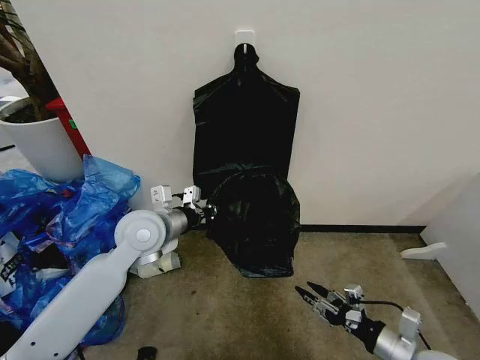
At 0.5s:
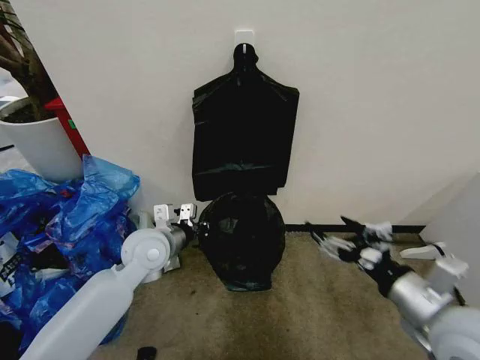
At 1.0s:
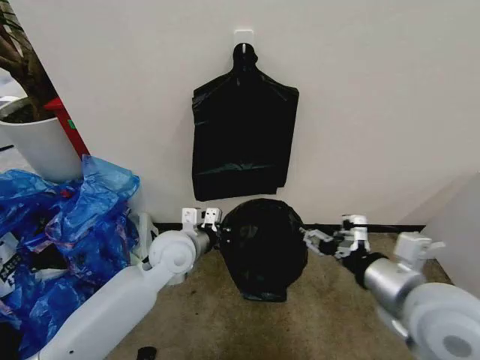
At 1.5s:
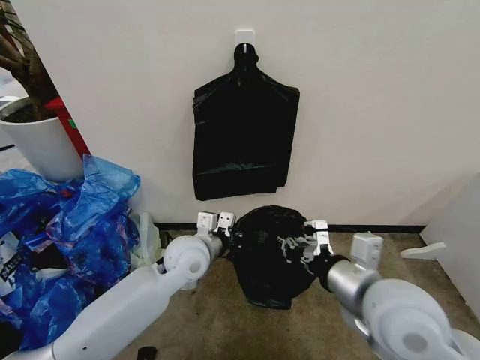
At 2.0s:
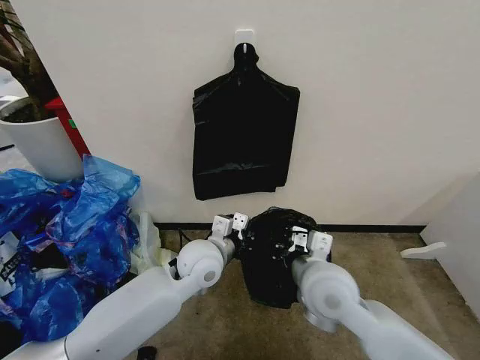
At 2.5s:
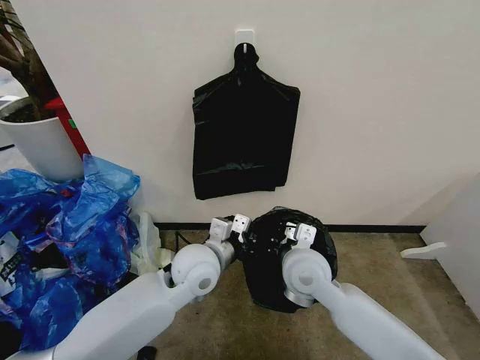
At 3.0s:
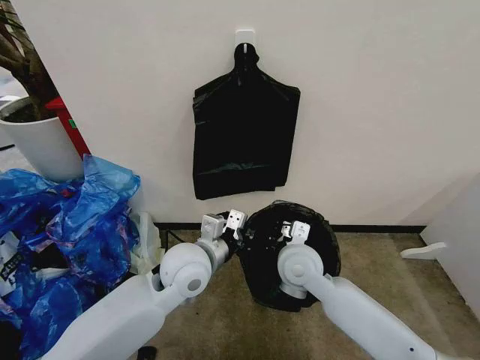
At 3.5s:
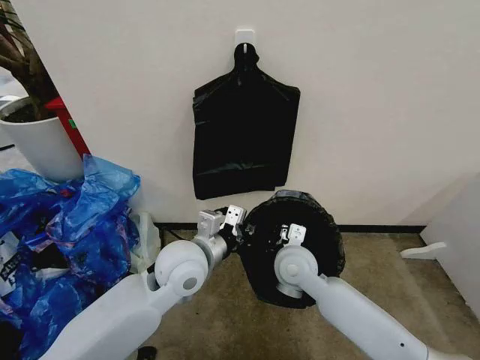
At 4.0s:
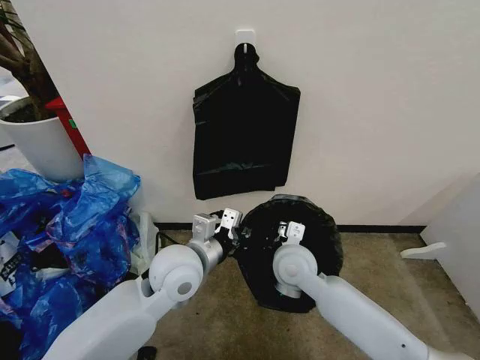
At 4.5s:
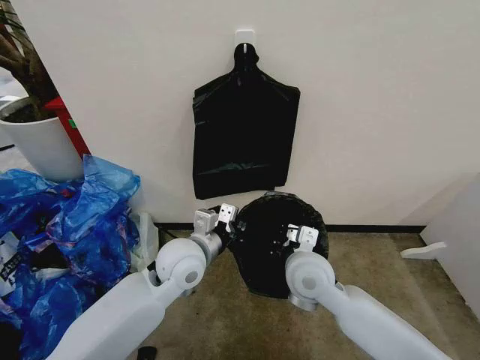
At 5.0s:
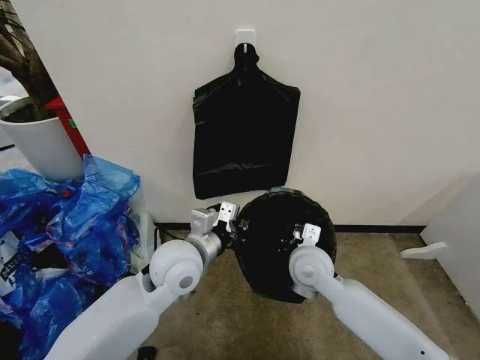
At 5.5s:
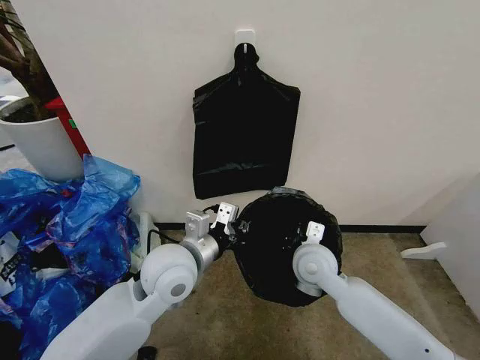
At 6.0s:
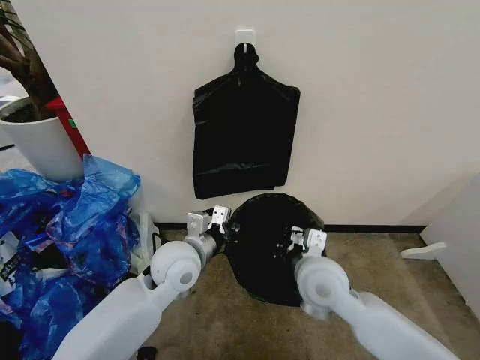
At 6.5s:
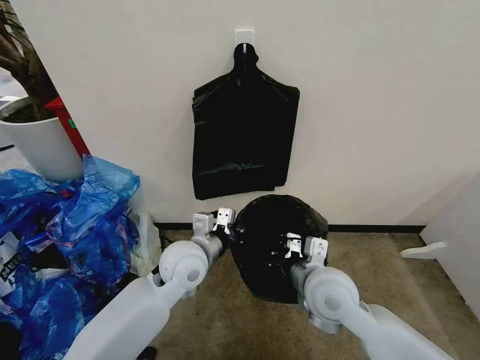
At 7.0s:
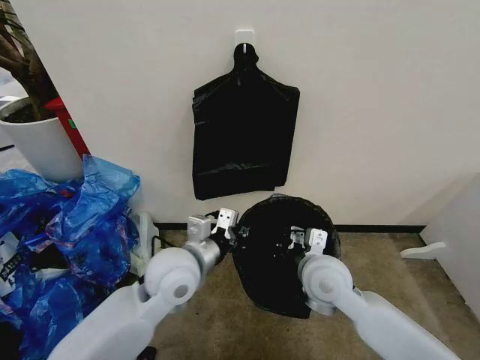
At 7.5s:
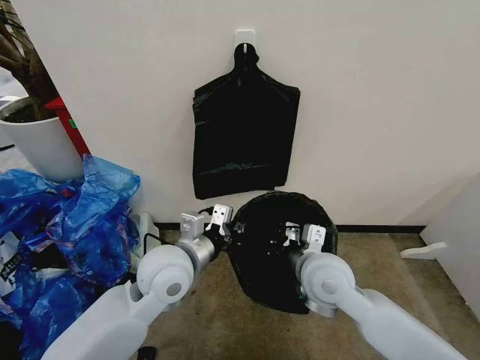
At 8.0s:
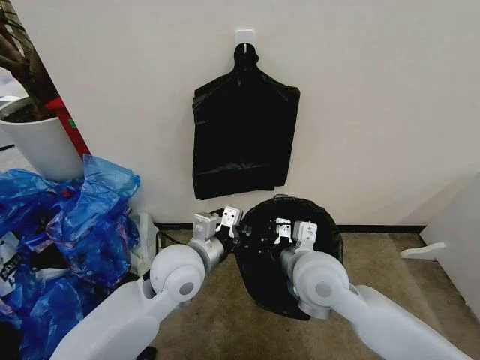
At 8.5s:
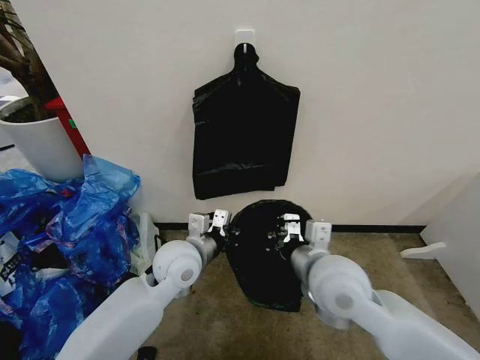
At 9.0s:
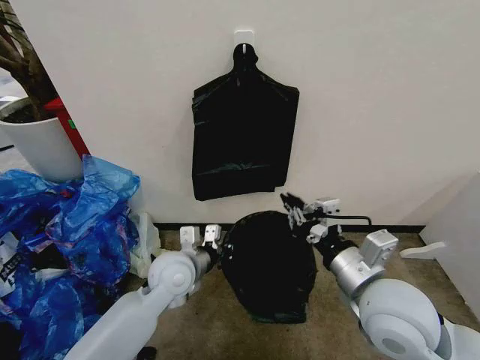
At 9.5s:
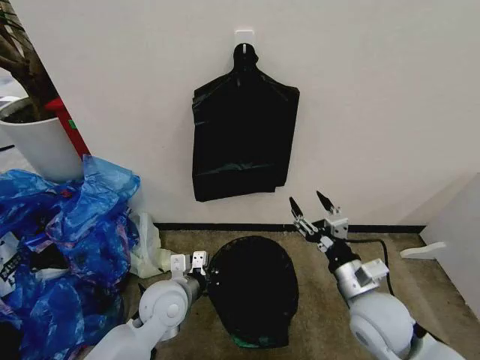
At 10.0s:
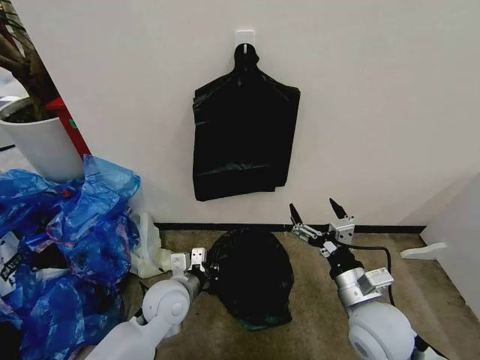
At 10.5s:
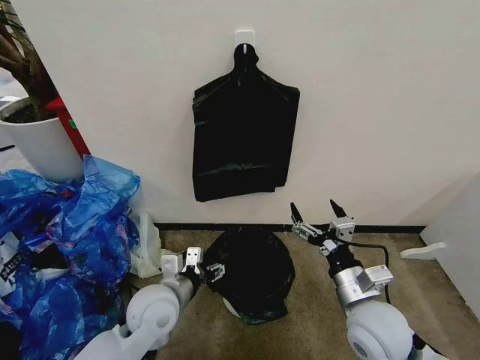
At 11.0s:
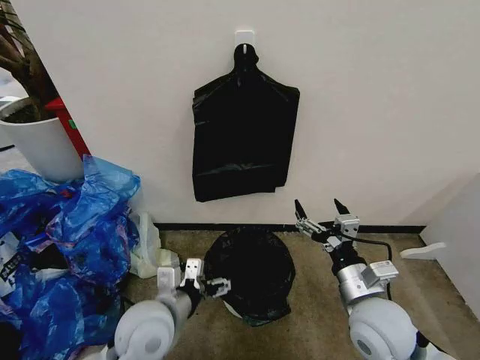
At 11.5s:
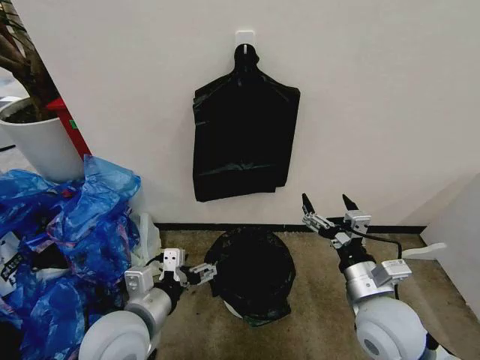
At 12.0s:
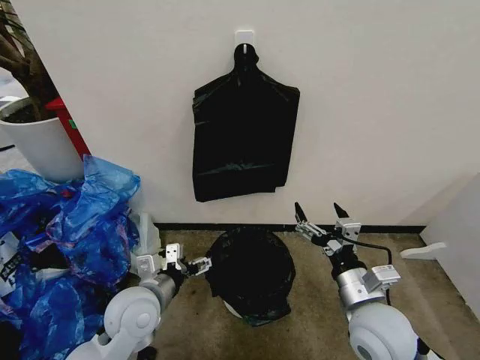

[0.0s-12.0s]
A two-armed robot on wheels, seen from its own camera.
Task of the whole recording: Place the garbage bag over the trash bin.
0.0s to 2.0s: The right gripper moves to the left, upward and forward, approximately 25 cm, and closes up; the left gripper moves to the right and downward, about 15 cm.
2.0s to 4.0s: The right gripper shifts approximately 10 cm forward and downward, while the left gripper changes place by roughly 5 cm.
4.0s to 6.0s: The right gripper swings forward and backward, roughly 5 cm each way, with 2 reversals.
6.0s to 8.0s: The grippers stay close to where they were, moving slightly.
8.0s to 10.0s: The right gripper shifts roughly 15 cm to the right, backward and downward, and opens its fingers. The left gripper travels downward by about 10 cm.
10.0s to 12.0s: The left gripper opens up.

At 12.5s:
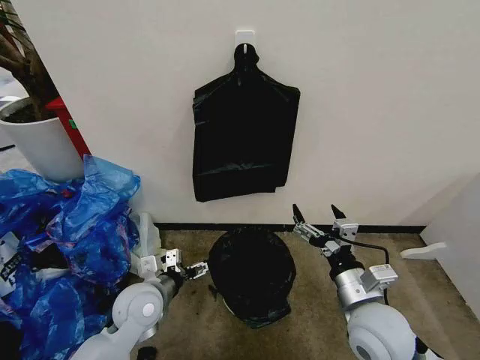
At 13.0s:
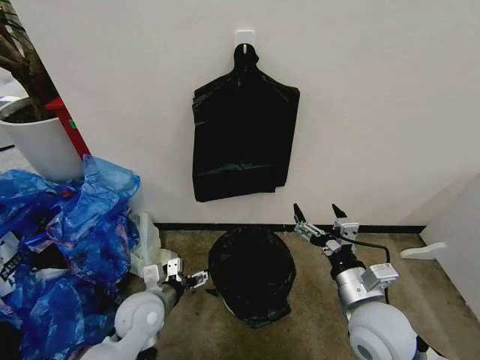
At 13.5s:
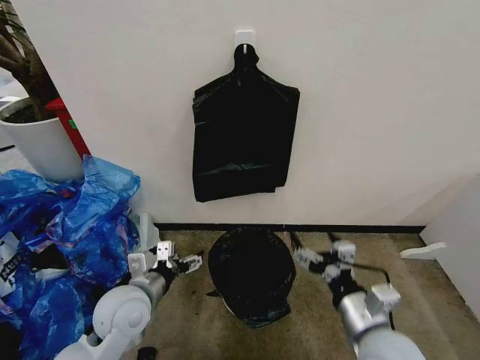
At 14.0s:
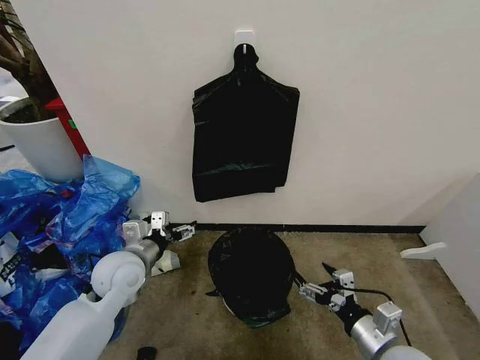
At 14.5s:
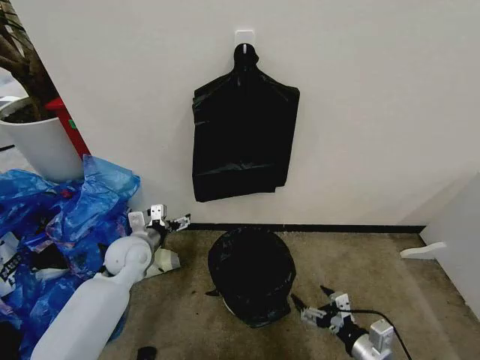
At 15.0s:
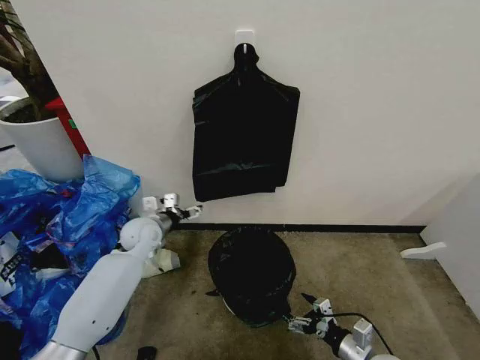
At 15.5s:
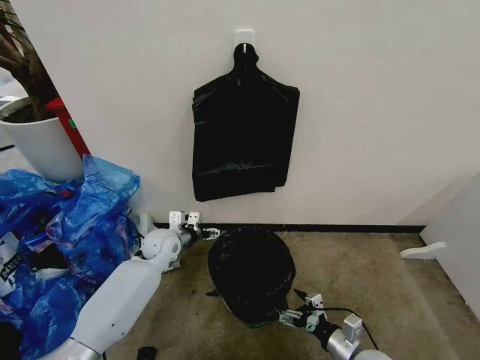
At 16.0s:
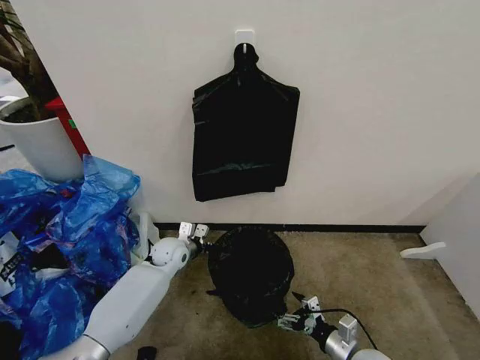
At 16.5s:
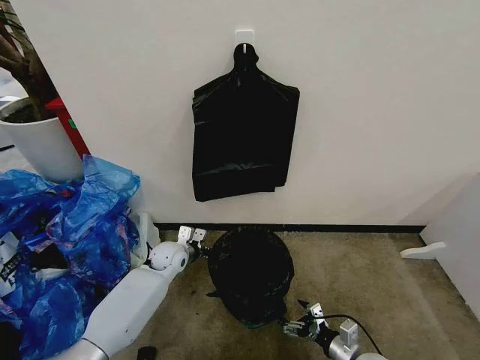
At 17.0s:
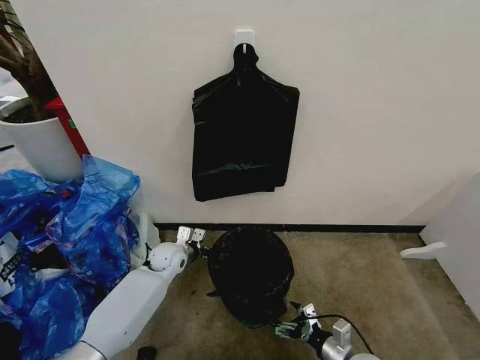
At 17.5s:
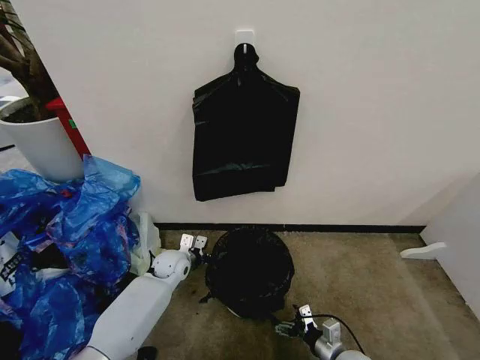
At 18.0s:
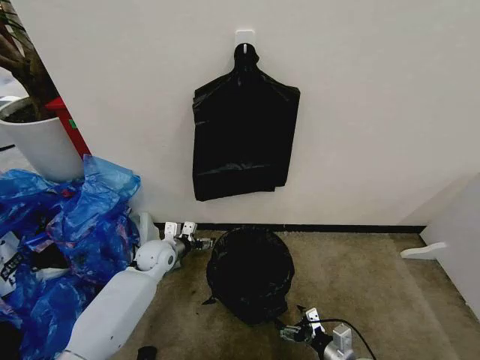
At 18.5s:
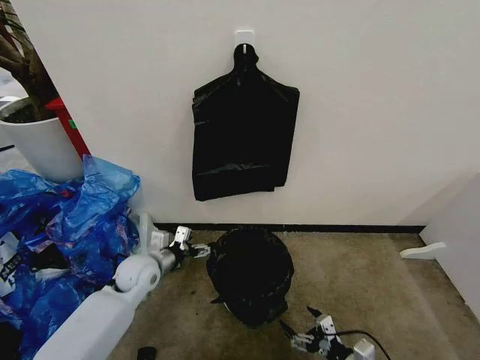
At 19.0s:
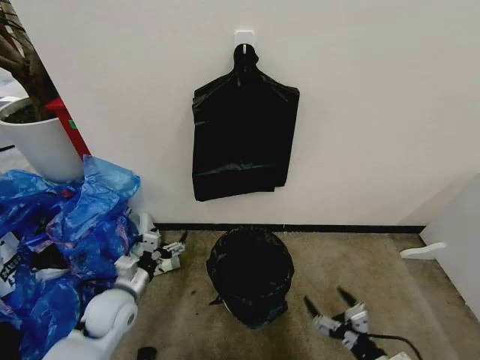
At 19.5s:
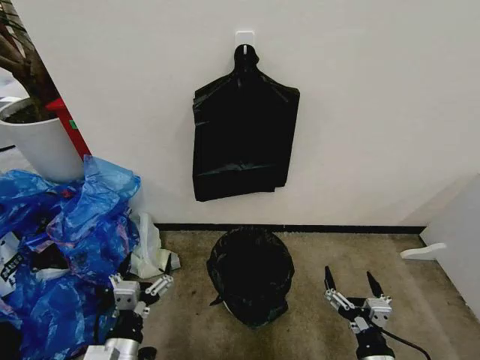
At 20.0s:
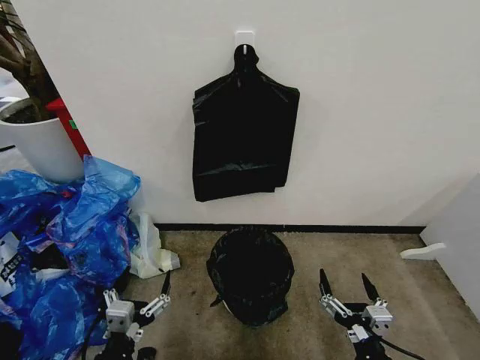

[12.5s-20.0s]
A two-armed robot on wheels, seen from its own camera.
Task of the whole recording: Place the garbage bag over the trash bin.
12.5s to 14.5s: The right gripper shifts roughly 15 cm downward, to the right and backward; the left gripper heads forward and to the left, covering roughly 10 cm.
14.5s to 16.5s: The left gripper is displaced downward, to the right and forward by roughly 15 cm. The right gripper is displaced downward by roughly 10 cm.
16.5s to 18.0s: There are only small adjustments of the grippers.
18.0s to 20.0s: The left gripper travels backward by about 35 cm. Meanwhile the right gripper is displaced upward and backward by some 15 cm.

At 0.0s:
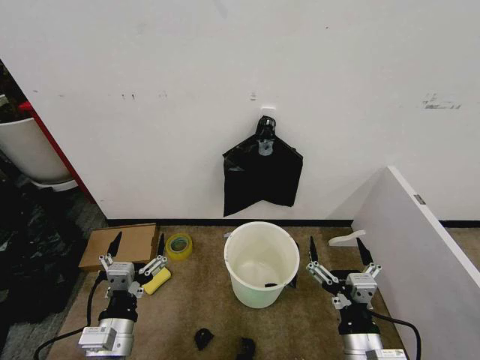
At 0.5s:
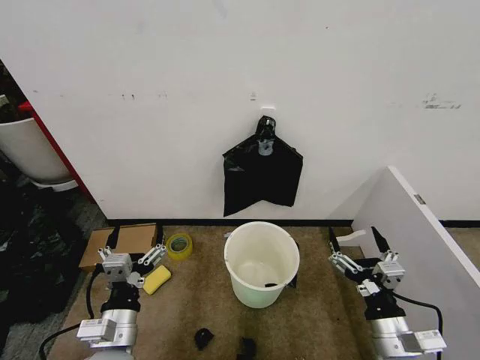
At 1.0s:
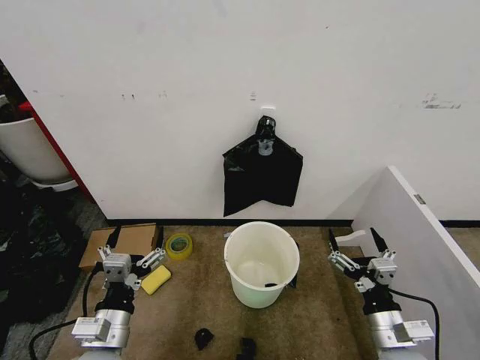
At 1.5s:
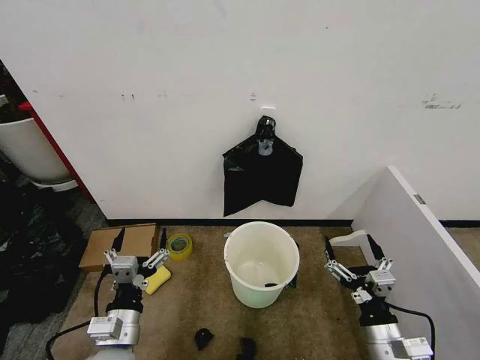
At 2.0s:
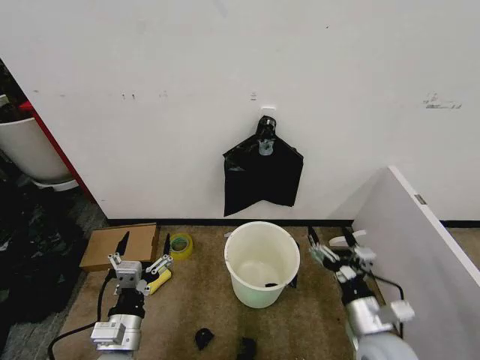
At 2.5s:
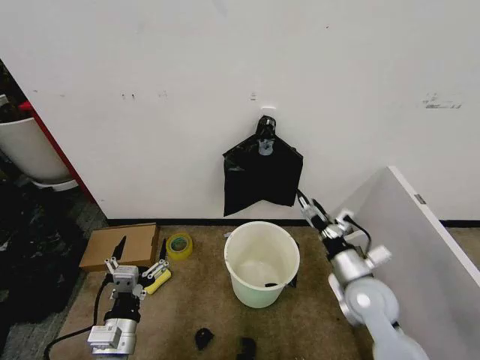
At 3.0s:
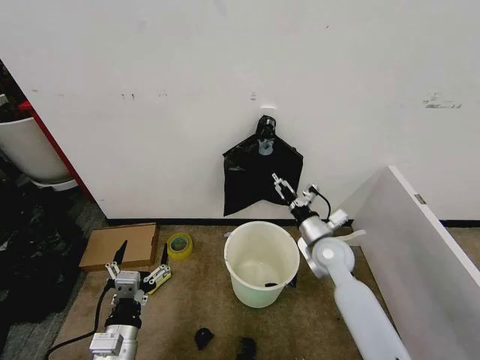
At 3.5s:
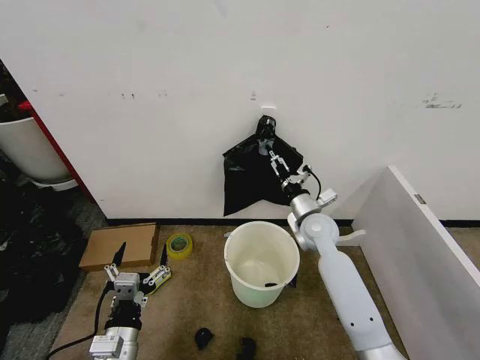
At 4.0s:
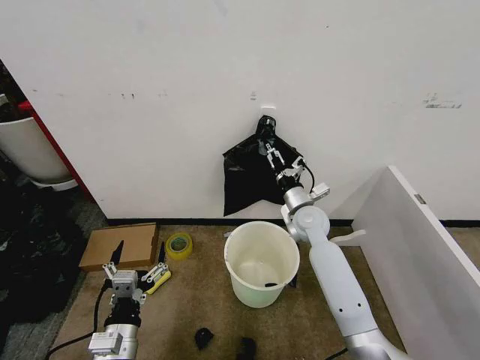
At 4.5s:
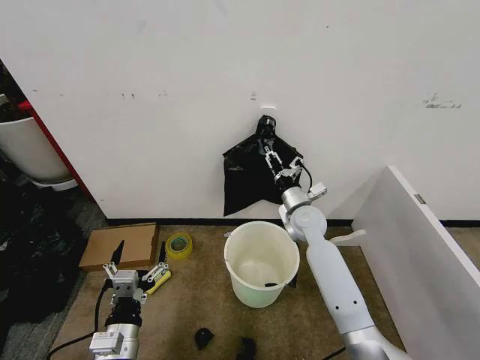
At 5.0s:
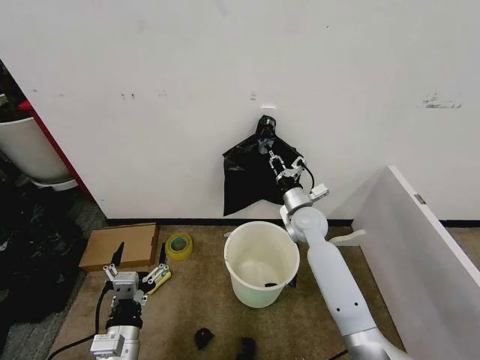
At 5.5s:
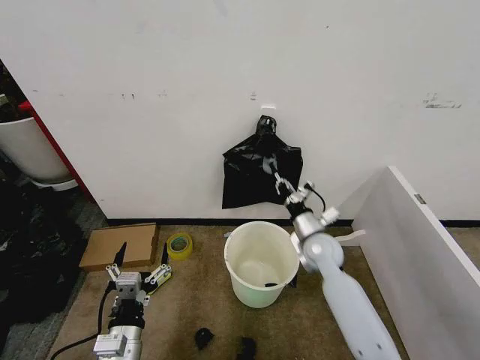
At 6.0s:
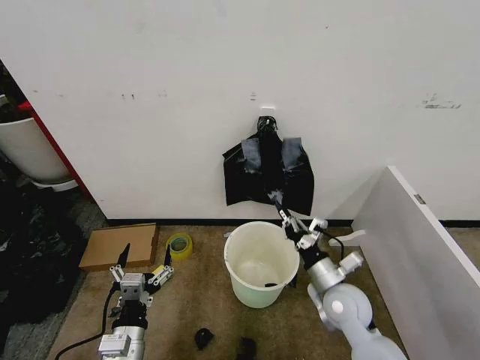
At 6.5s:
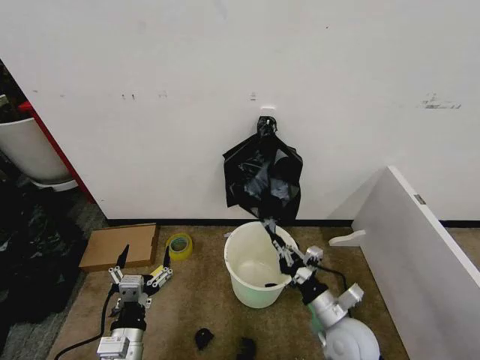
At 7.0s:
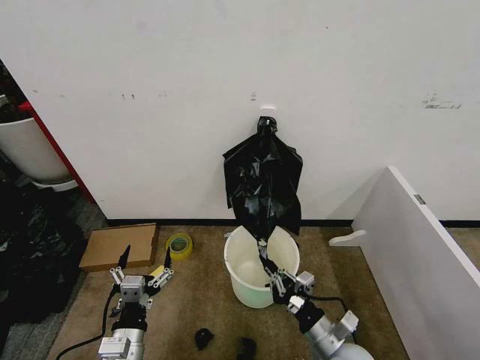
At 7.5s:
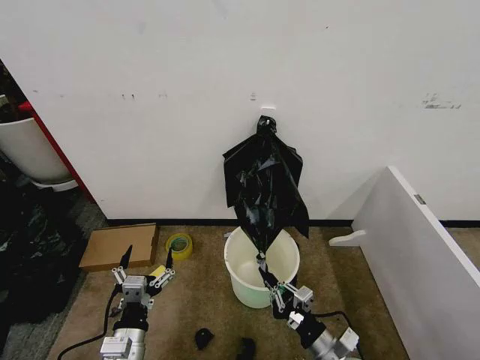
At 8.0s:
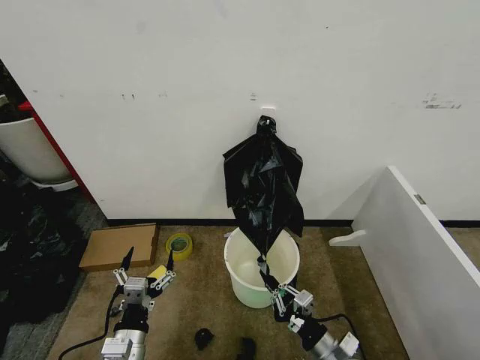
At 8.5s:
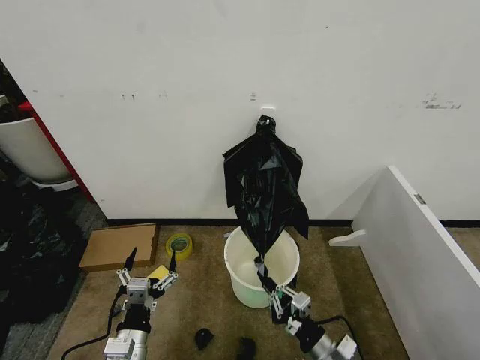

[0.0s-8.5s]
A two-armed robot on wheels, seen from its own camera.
Task of the whole recording: Place the garbage bag over the trash bin.
2.0s to 4.0s: The right gripper moves forward, some 30 cm.
4.0s to 6.5s: The right gripper moves backward, about 25 cm, and closes.
6.5s to 8.5s: The right gripper moves backward and downward, roughly 10 cm.
